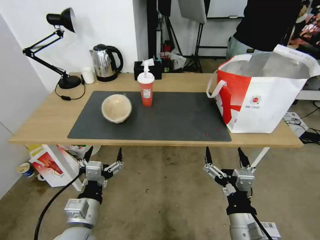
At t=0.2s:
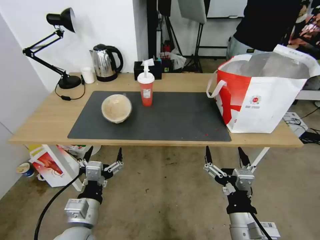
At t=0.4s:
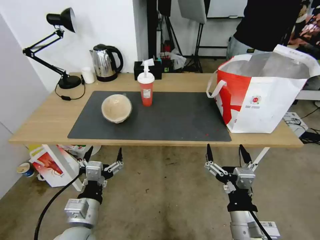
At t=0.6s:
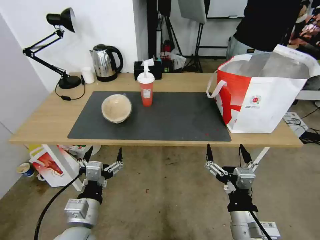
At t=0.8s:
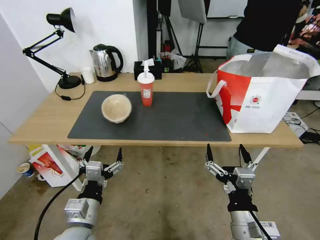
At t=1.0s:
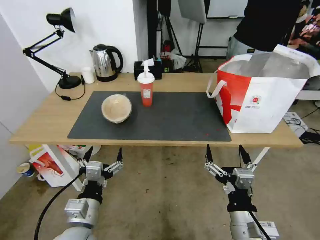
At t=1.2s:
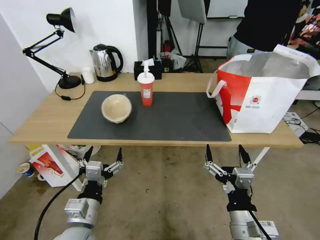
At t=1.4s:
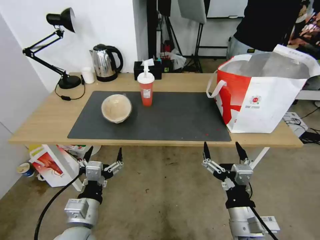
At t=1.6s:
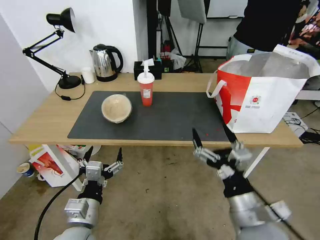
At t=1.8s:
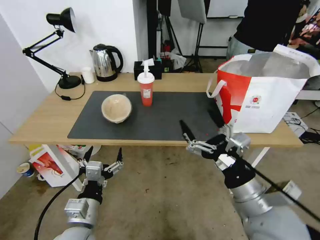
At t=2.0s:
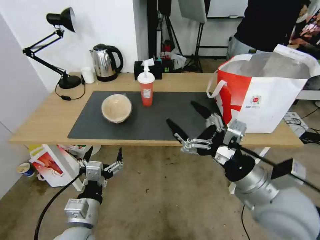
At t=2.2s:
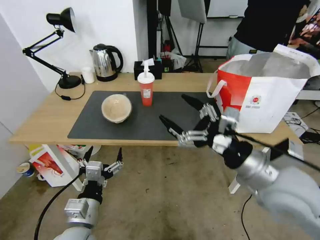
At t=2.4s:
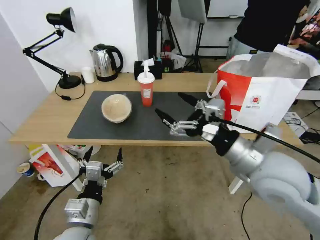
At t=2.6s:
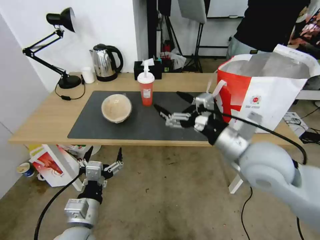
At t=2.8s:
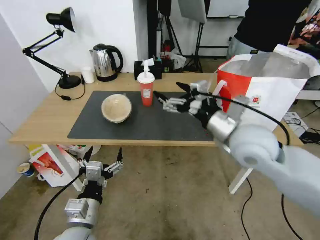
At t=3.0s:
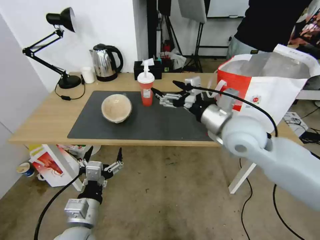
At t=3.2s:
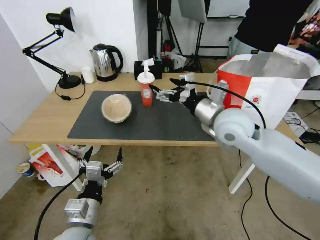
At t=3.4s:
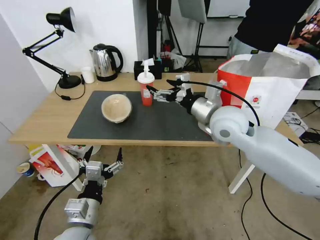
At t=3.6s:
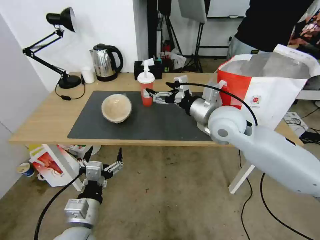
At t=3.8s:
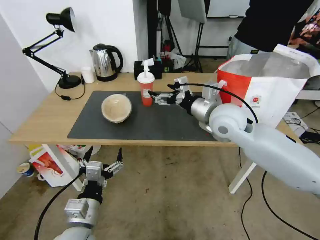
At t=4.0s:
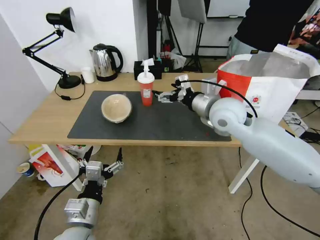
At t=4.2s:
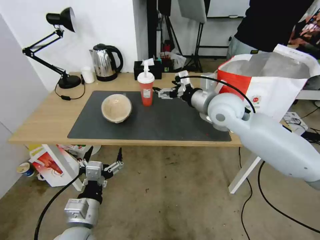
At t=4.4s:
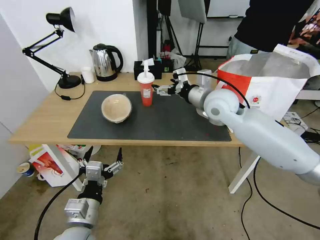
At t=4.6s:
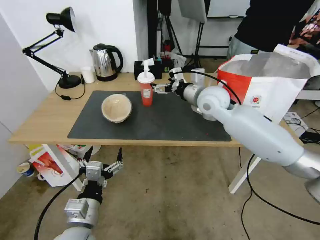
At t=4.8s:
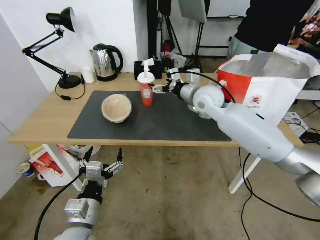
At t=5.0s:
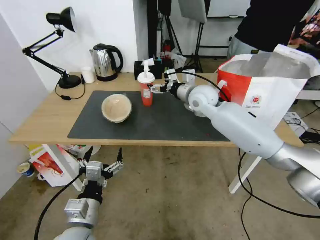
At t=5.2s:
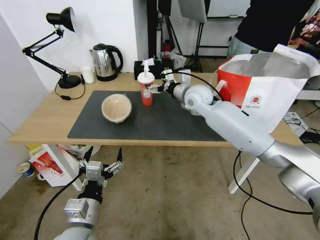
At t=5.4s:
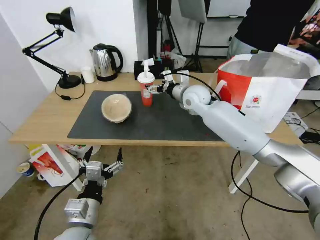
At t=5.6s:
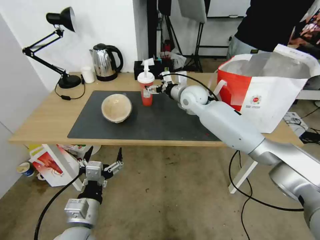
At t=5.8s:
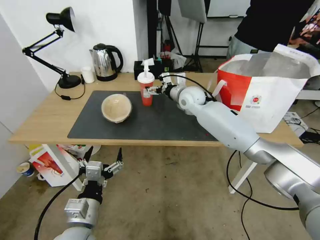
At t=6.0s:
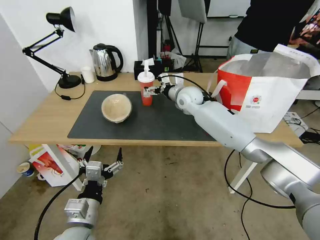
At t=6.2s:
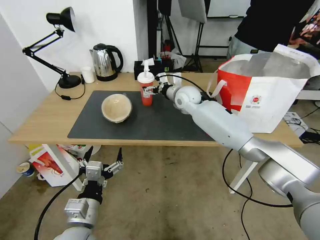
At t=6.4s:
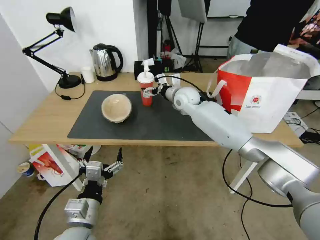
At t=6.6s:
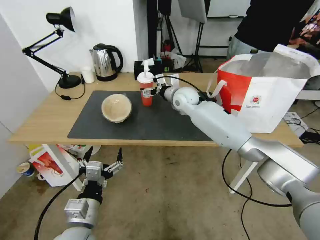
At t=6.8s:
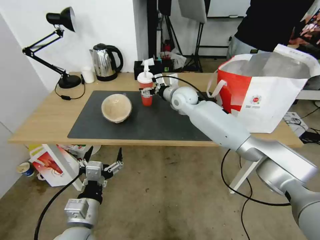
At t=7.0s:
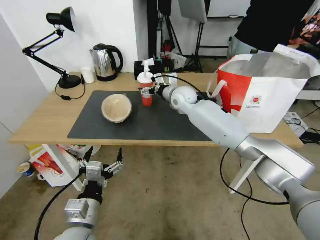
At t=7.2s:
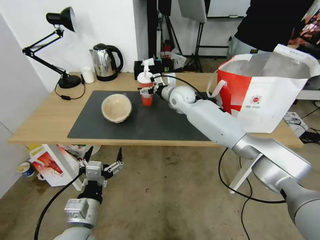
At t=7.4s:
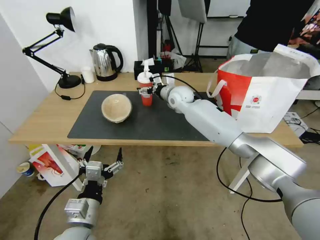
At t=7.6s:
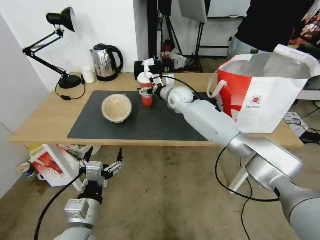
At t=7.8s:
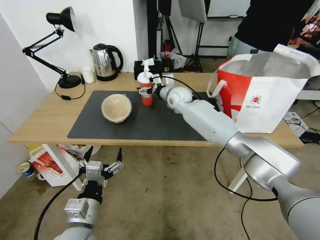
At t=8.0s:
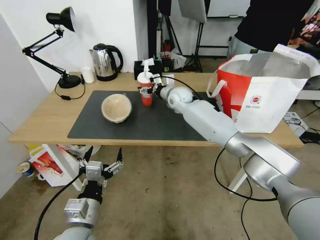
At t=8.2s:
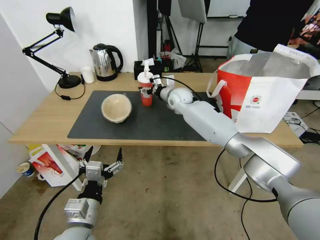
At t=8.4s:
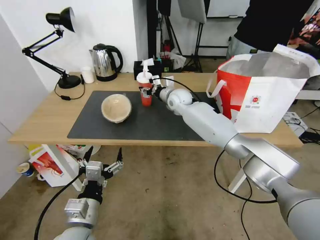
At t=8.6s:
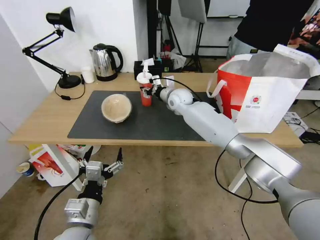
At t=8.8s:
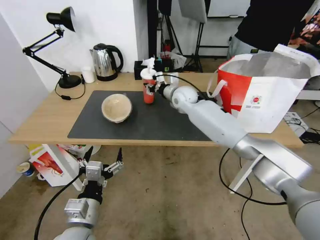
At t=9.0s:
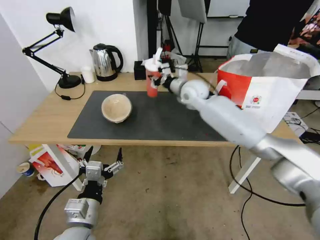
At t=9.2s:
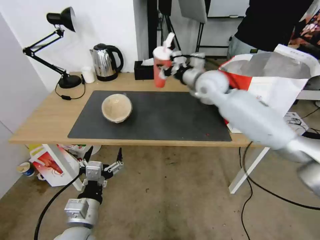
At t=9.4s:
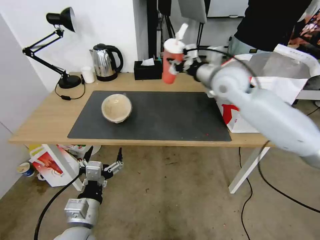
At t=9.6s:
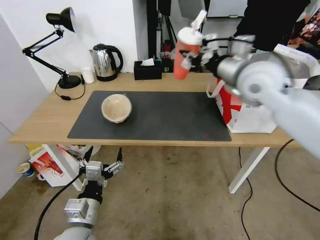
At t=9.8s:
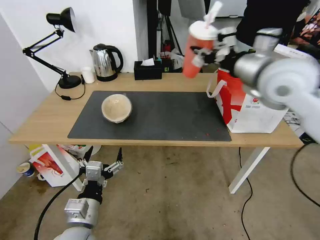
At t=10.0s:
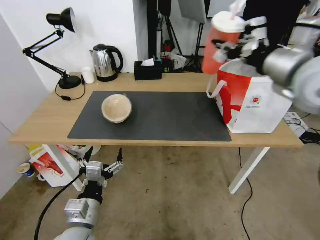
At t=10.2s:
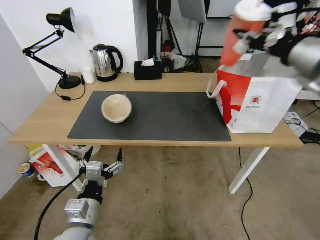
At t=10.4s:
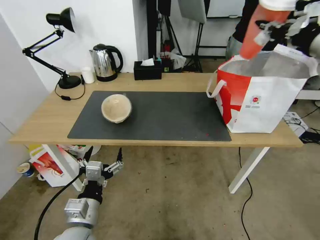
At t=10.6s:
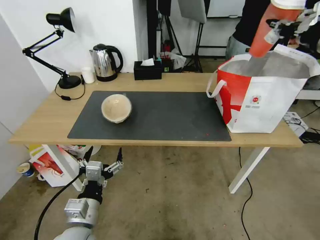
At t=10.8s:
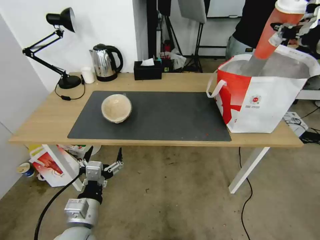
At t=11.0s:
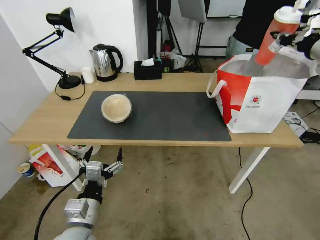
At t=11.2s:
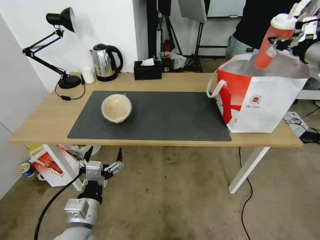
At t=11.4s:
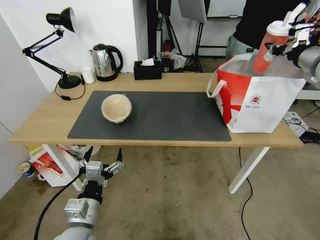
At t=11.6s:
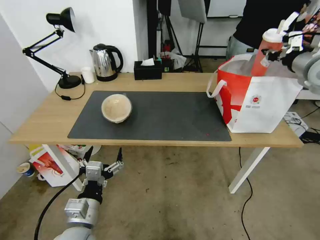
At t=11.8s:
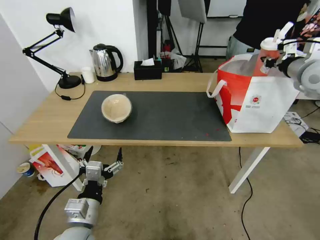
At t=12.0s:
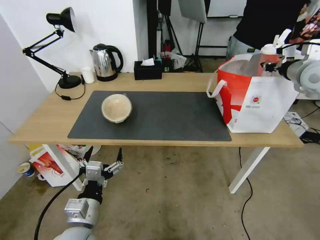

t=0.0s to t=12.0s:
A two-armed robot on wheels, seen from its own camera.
Task of the whole recording: Pick up the trash from the table and place it into the takeout bag.
t=0.0s to t=1.6s: The right gripper ends up approximately 5 cm from where it was.
t=1.6s to t=3.0s: The right gripper goes about 25 cm forward and upward.
t=3.0s to t=4.4s: The right gripper goes some 10 cm forward.
t=4.4s to t=6.0s: The right gripper travels forward, downward and to the left by roughly 15 cm.
t=6.0s to t=7.6s: The grippers stay close to where they were, moving slightly.
t=7.6s to t=9.0s: The right gripper is displaced upward by approximately 5 cm, and closes.
t=9.0s to t=10.4s: The right gripper is displaced to the right, upward and backward by approximately 40 cm.
t=10.4s to t=12.0s: The right gripper shifts approximately 15 cm forward, downward and to the right.

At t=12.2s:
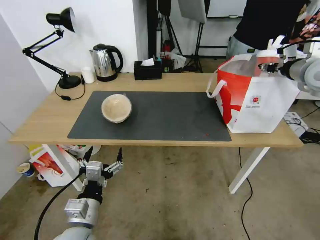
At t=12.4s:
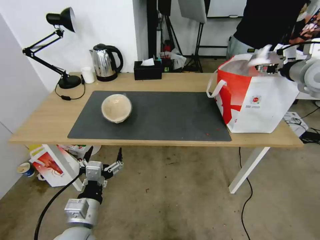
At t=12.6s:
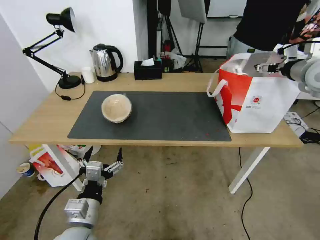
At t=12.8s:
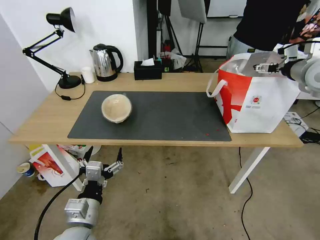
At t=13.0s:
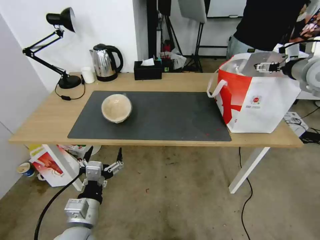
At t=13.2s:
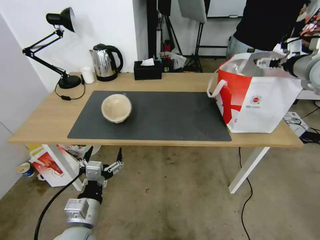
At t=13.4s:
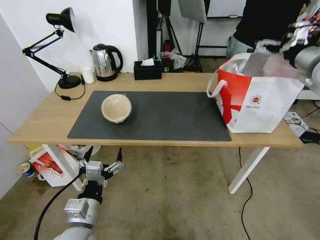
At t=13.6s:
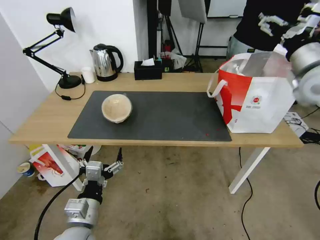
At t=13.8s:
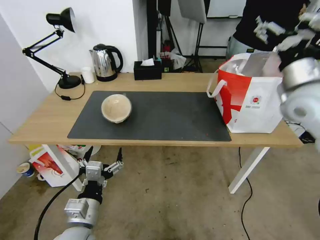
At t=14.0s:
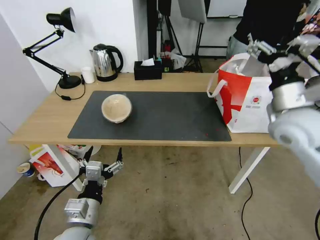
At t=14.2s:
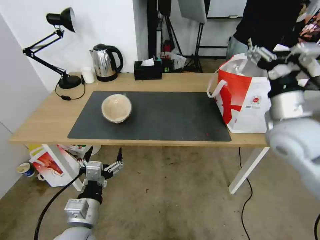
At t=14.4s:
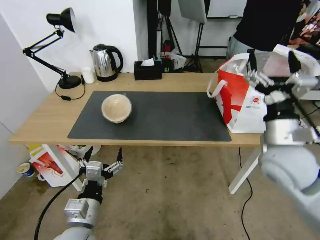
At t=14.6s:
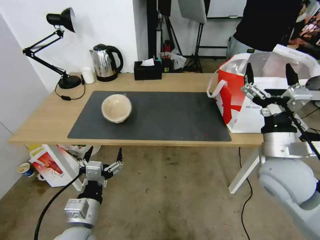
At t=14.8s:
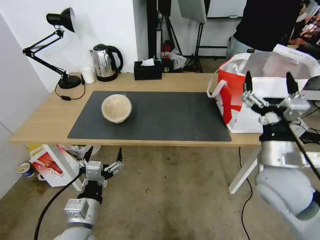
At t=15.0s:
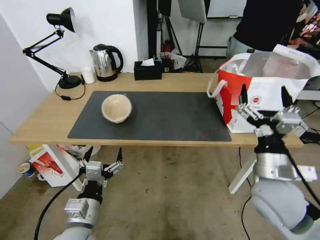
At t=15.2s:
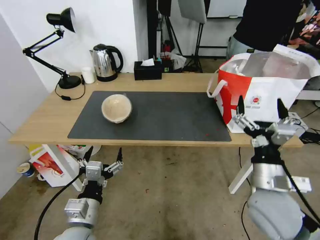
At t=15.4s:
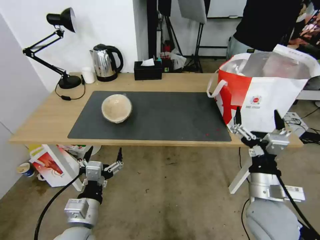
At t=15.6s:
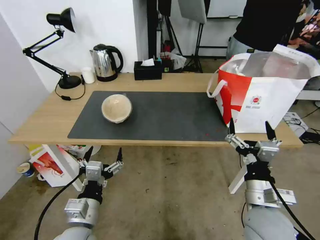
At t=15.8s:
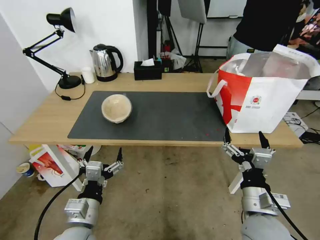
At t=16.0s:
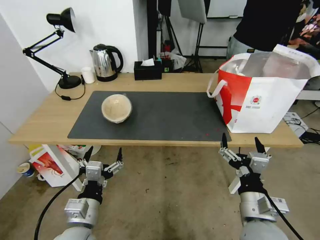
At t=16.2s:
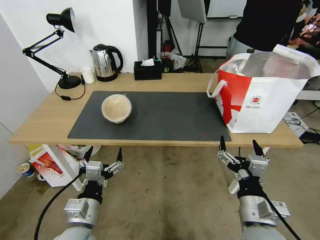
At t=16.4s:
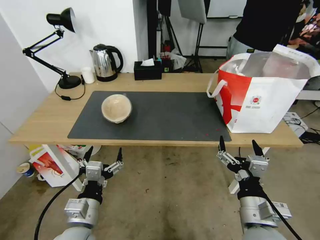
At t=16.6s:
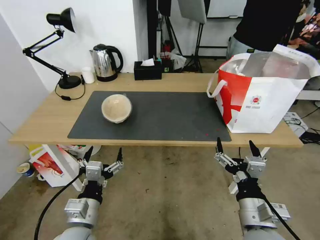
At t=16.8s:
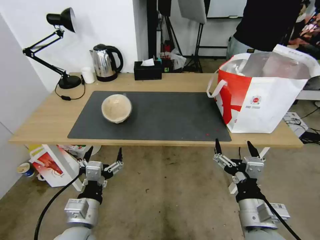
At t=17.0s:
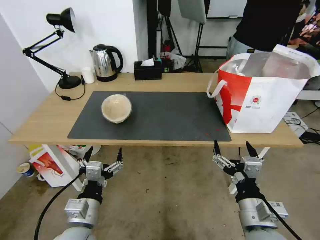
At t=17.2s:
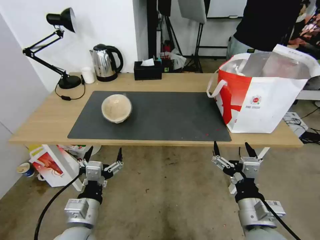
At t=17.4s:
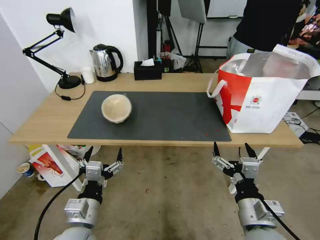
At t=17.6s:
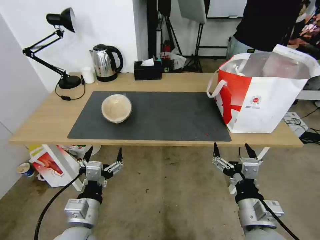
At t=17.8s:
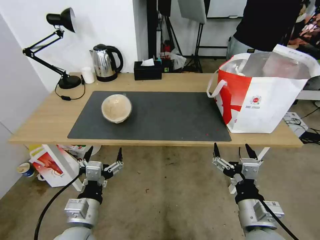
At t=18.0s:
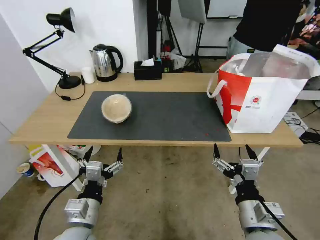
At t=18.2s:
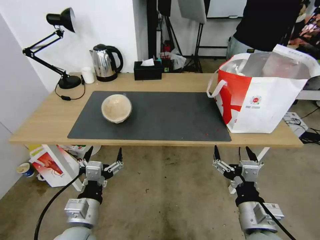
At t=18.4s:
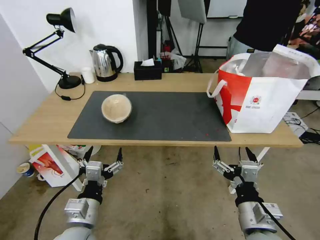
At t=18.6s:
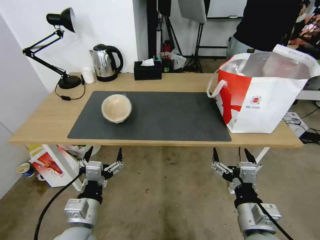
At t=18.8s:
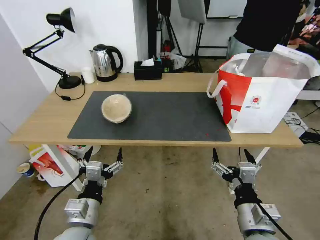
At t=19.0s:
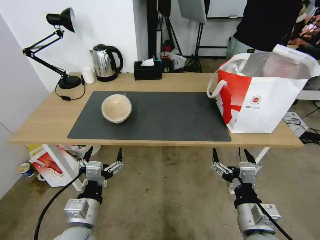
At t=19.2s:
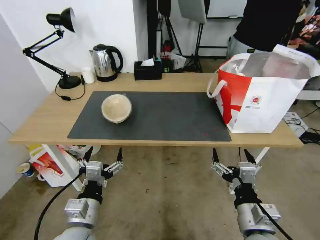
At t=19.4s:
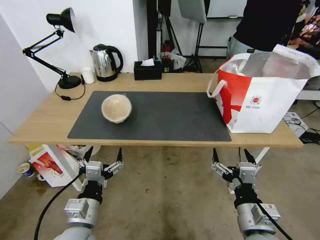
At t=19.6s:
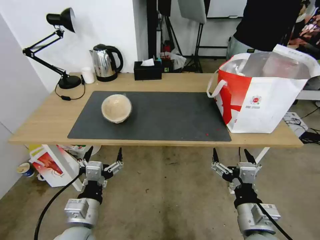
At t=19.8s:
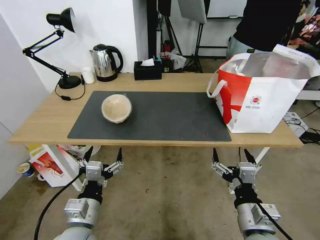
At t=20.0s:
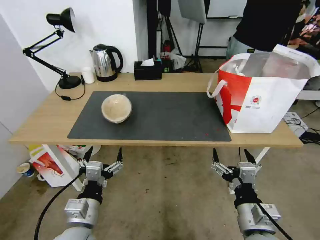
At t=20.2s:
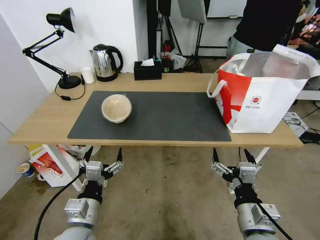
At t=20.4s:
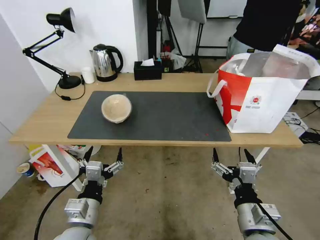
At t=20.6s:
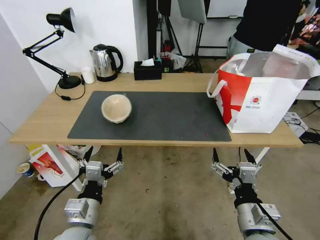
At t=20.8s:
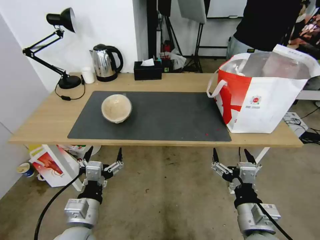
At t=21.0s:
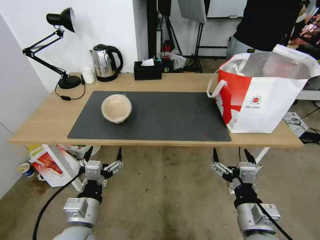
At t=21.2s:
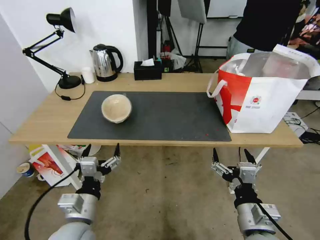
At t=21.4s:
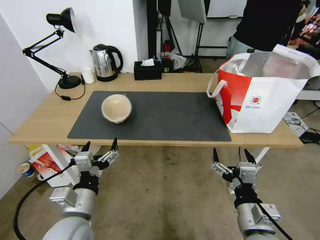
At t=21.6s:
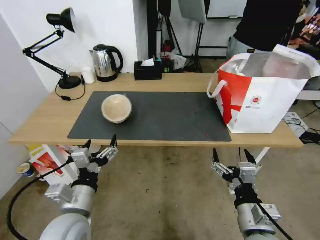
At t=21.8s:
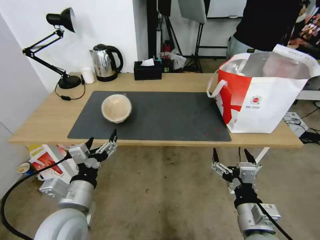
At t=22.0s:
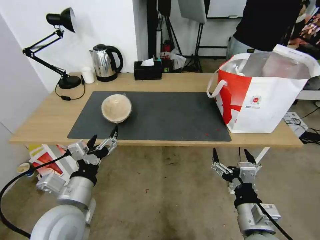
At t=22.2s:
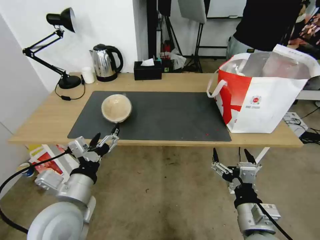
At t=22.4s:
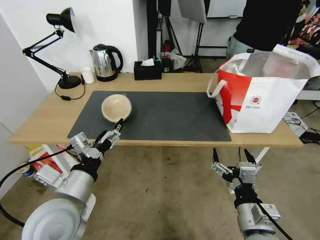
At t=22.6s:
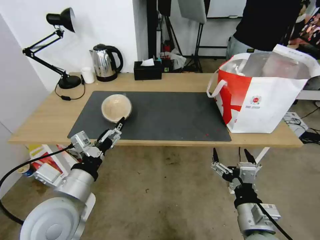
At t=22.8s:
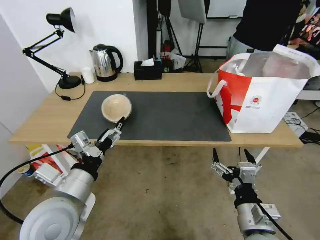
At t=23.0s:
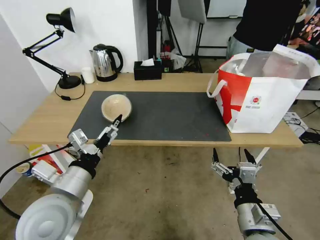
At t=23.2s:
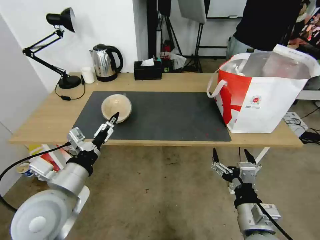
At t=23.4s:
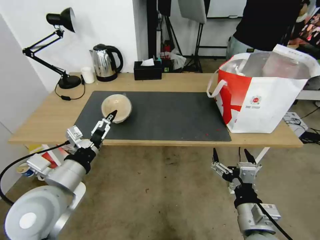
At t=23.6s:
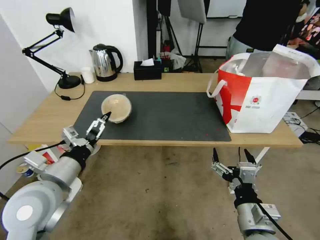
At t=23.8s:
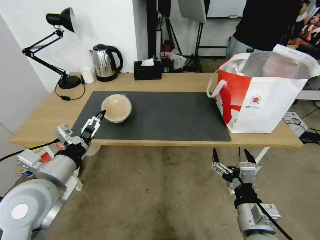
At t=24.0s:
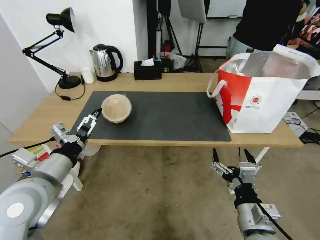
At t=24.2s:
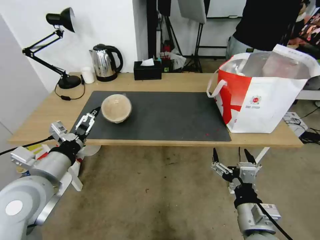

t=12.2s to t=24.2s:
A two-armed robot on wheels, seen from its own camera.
Task of the whole recording: Pick up the trash from the table and place it into the takeout bag.
t=12.2s to t=13.8s: The right gripper heads to the left and backward, covering some 10 cm, and opens its fingers.
t=13.8s to t=15.2s: The right gripper goes roughly 30 cm backward, downward and to the left.
t=15.2s to t=16.6s: The right gripper goes approximately 5 cm backward.
t=16.6s to t=18.2s: The grippers move only a little.
t=18.2s to t=19.8s: Both grippers stay put.
t=19.8s to t=21.2s: The grippers stay close to where they were, moving slightly.
t=21.2s to t=22.6s: The left gripper heads upward, covering approximately 10 cm.
t=22.6s to t=24.2s: The left gripper is displaced to the left by some 5 cm.
